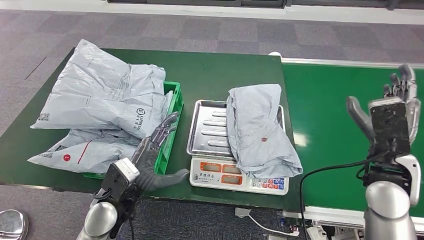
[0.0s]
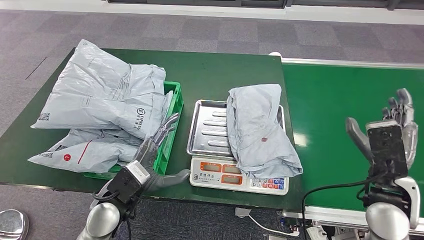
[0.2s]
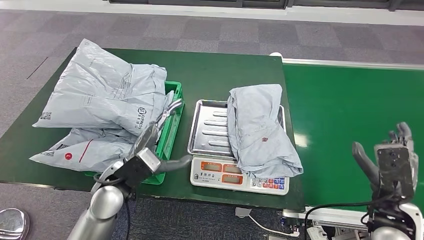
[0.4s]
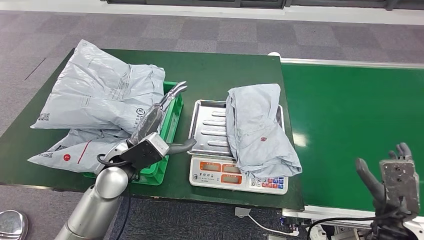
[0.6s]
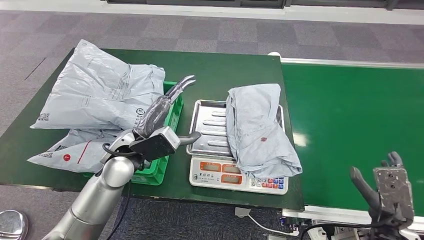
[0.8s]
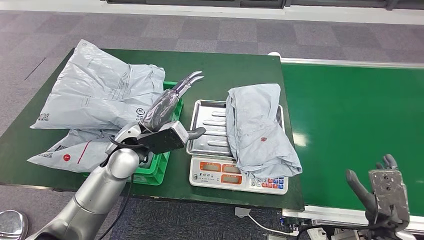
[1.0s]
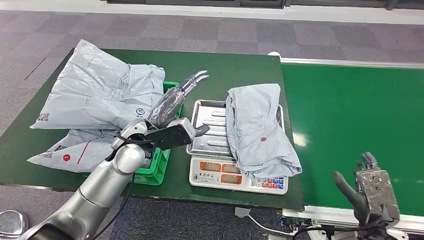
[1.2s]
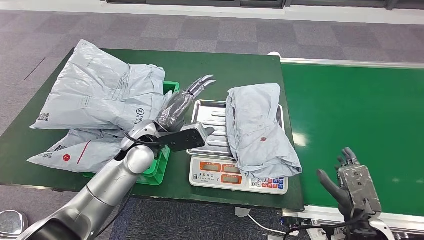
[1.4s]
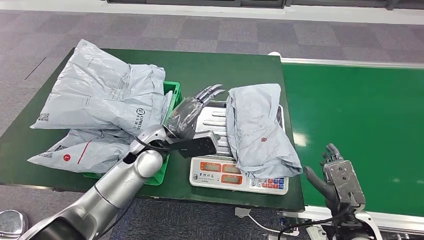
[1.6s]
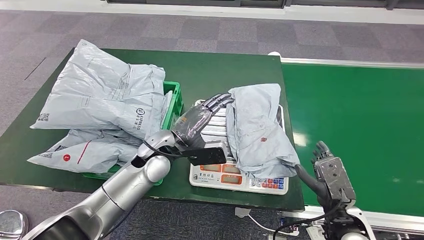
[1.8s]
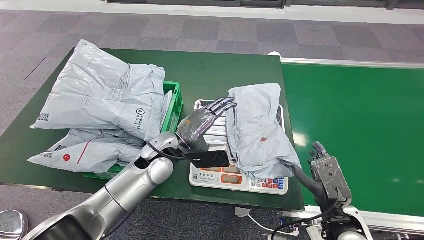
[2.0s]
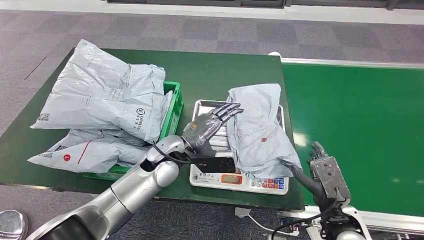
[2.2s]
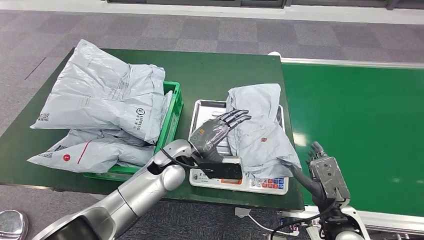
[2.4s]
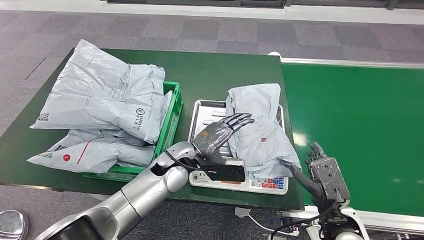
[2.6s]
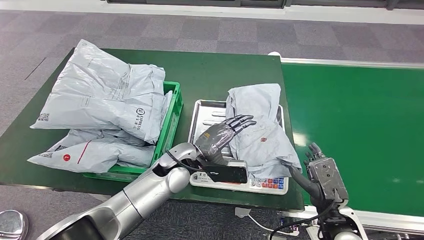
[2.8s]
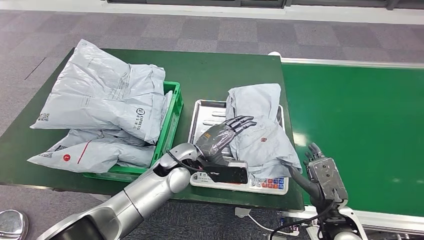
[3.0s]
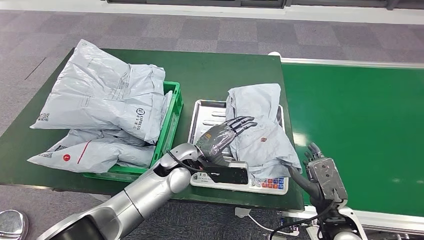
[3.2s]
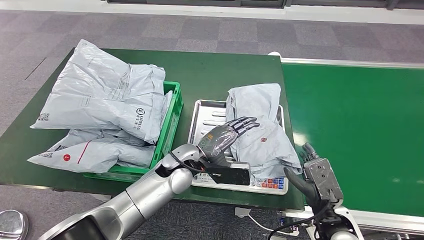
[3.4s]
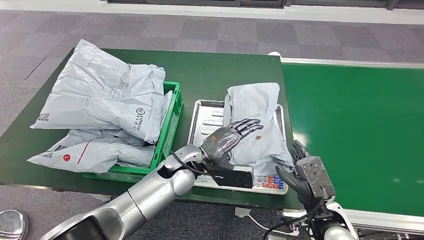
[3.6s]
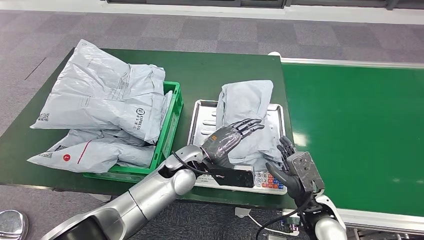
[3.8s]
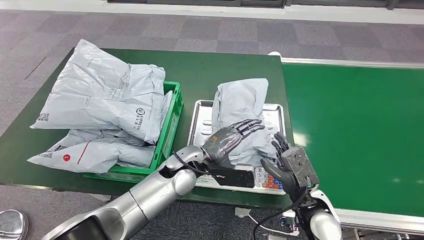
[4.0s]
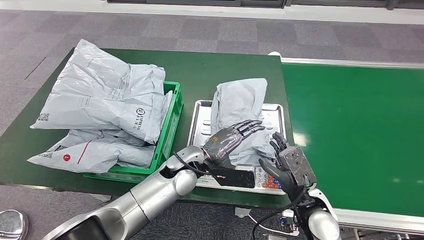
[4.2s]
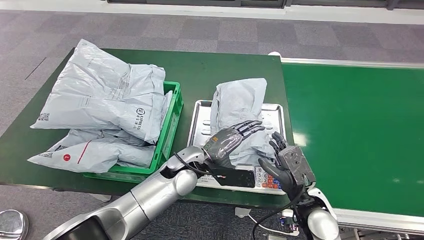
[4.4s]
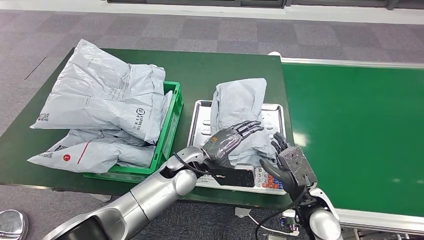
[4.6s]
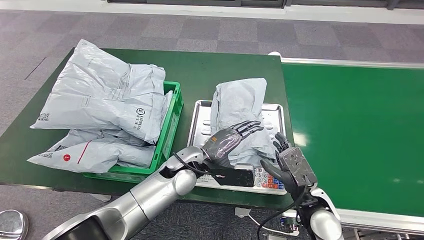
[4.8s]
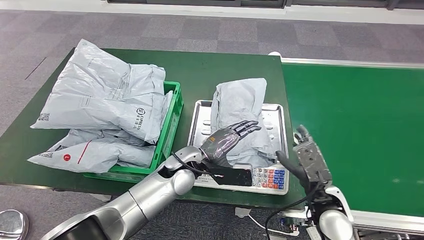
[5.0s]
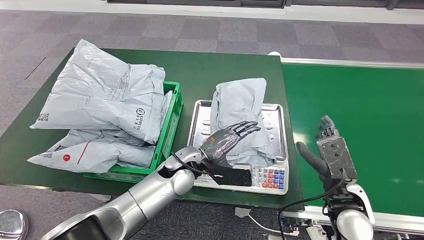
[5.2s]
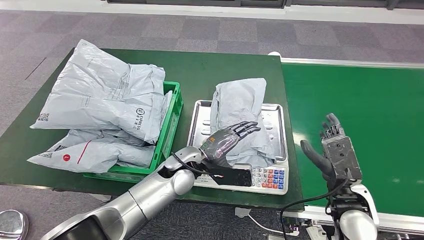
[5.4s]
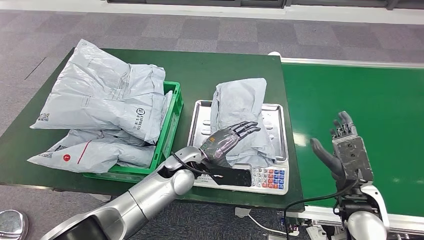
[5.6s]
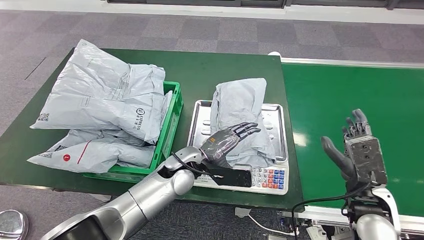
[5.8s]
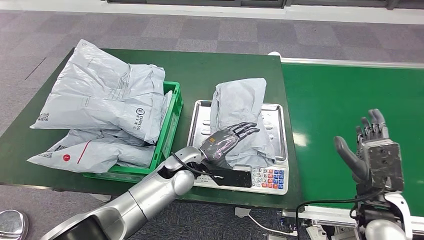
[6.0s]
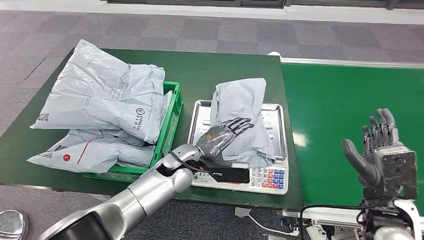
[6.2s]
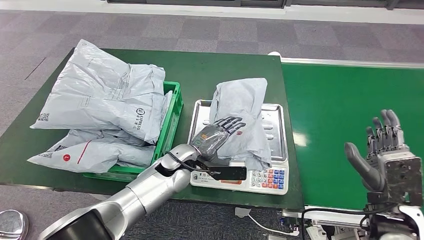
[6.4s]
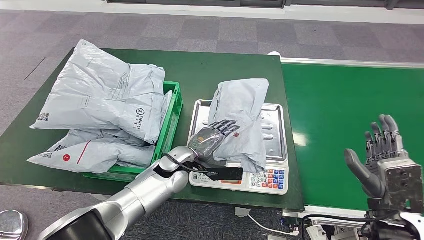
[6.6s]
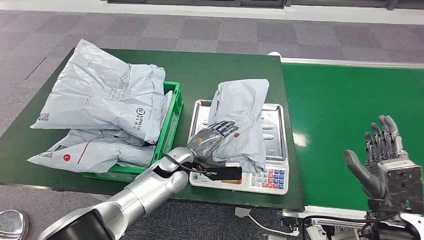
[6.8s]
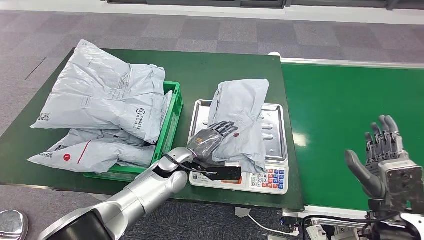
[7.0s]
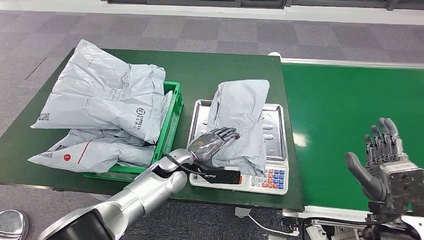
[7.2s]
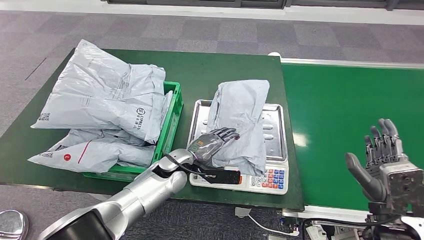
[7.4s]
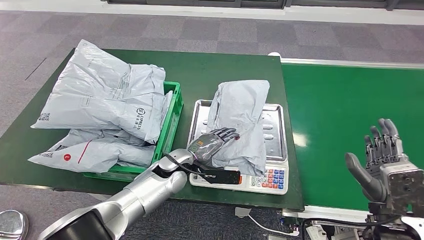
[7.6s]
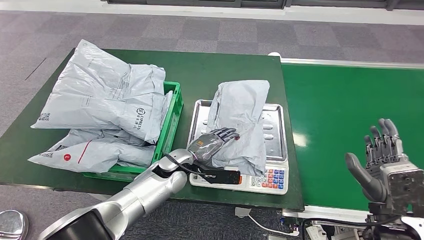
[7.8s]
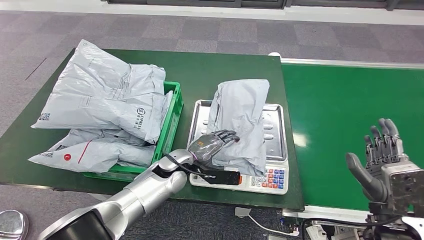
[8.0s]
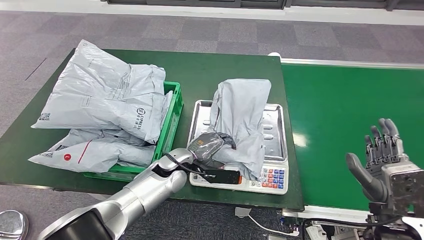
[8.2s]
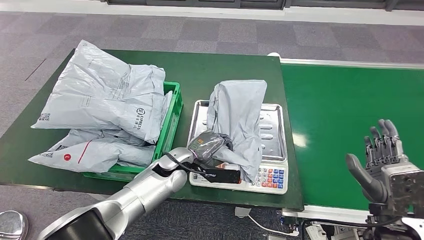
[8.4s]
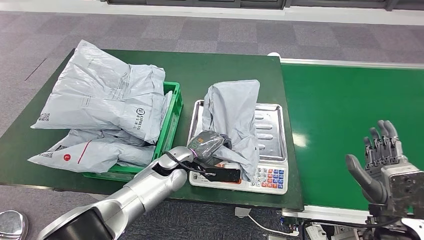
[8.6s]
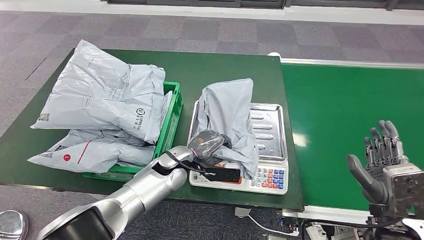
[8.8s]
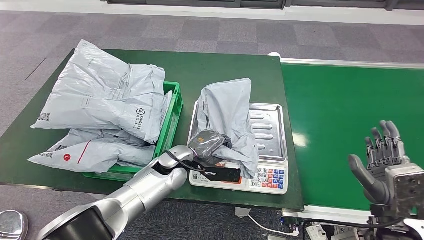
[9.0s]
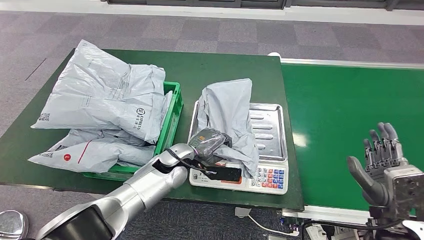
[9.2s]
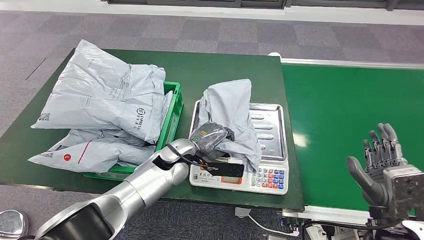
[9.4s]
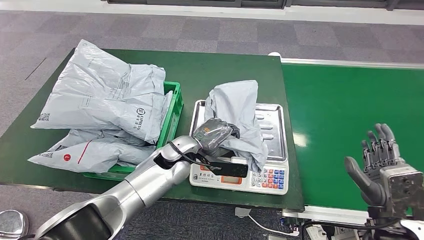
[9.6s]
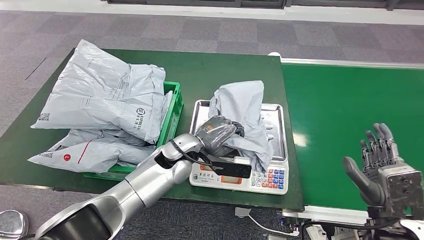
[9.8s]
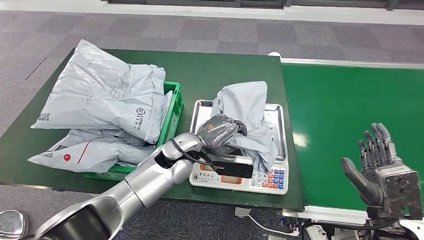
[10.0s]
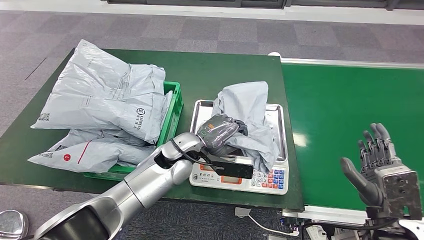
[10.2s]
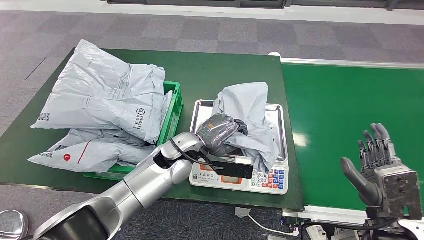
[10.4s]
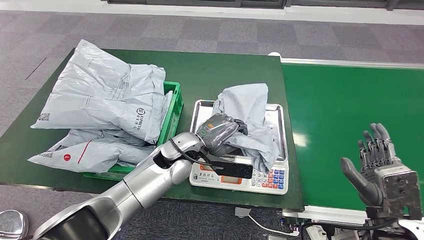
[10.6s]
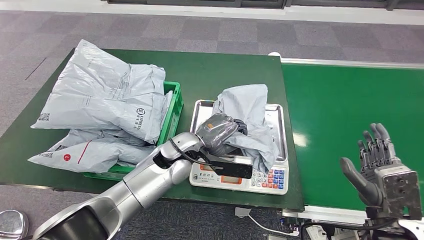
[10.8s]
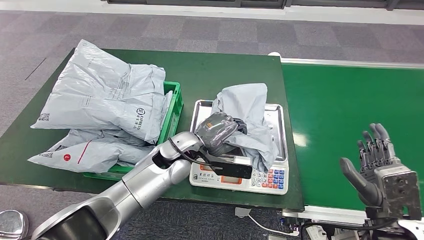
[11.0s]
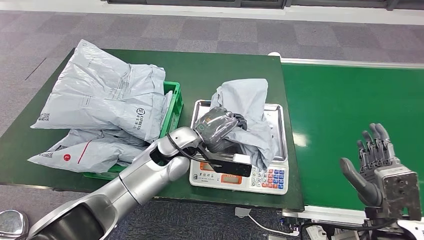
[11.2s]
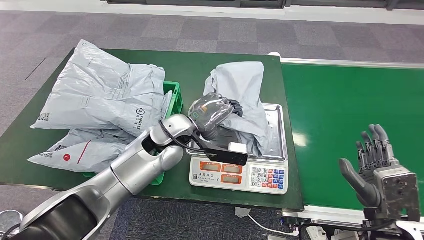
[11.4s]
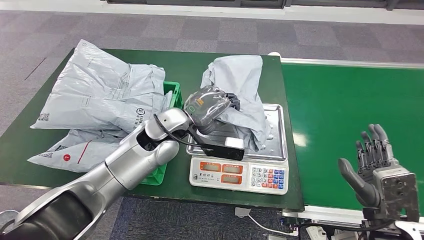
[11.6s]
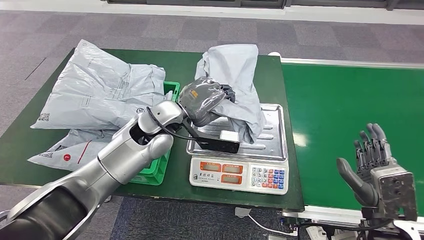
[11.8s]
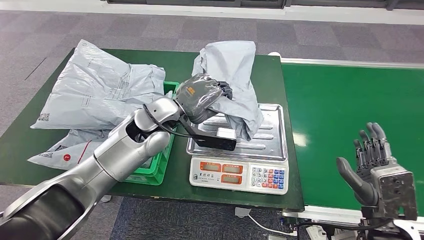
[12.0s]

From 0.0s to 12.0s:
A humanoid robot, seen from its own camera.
From 0.0s to 1.6s: The left hand travels forward, upward and to the right by roughly 15 cm; the right hand heads downward and backward, covering roughly 15 cm.
From 1.6s to 3.0s: The left hand travels to the right by about 5 cm.
From 3.0s to 4.4s: The right hand changes place by approximately 5 cm.
From 4.4s to 6.0s: The right hand heads to the right and upward, covering some 15 cm.
From 6.0s to 7.6s: The left hand shifts by about 5 cm.
From 7.6s to 9.0s: The two hands keep their place.
From 9.0s to 10.4s: The left hand moves upward, about 5 cm.

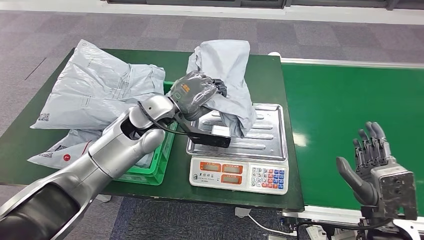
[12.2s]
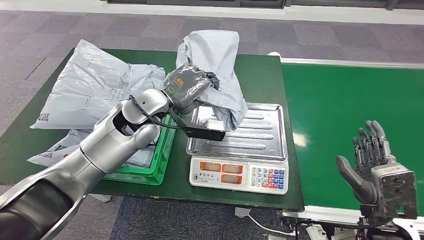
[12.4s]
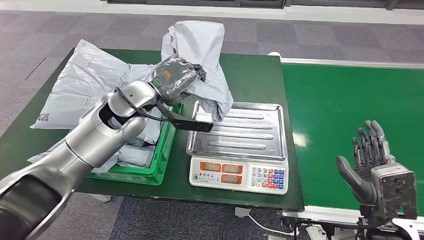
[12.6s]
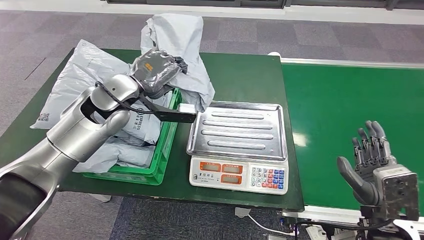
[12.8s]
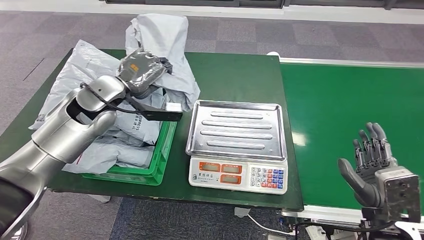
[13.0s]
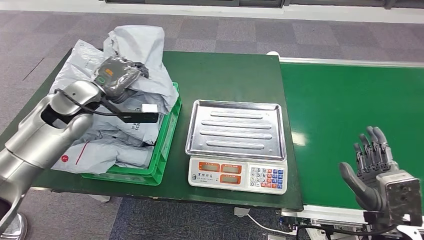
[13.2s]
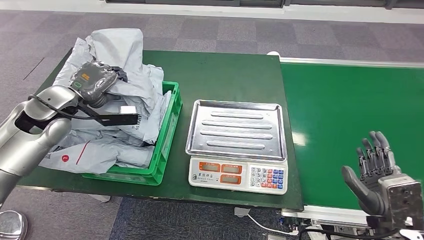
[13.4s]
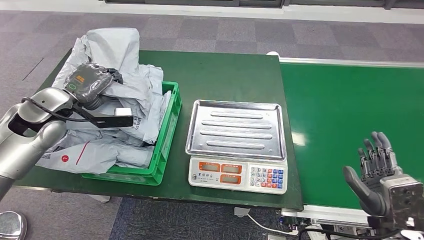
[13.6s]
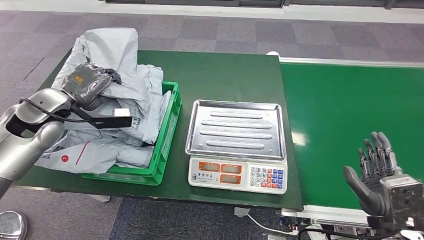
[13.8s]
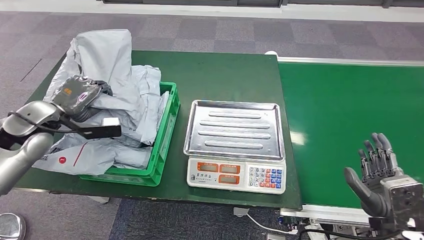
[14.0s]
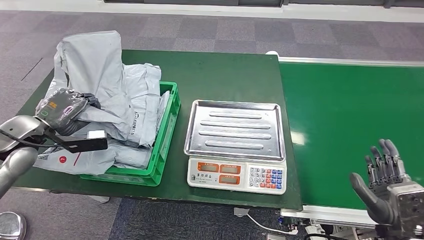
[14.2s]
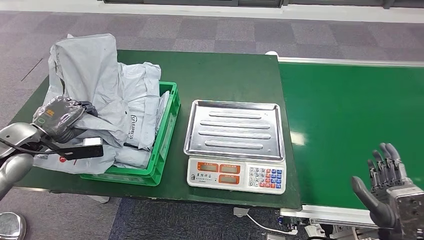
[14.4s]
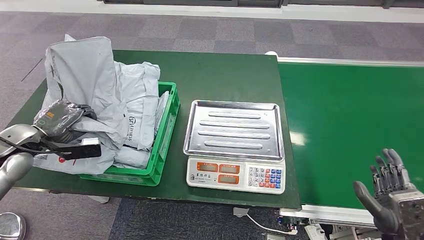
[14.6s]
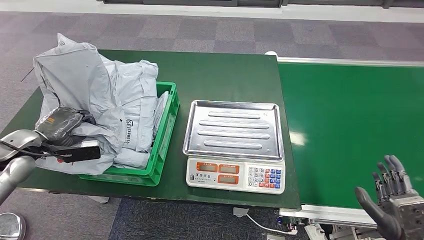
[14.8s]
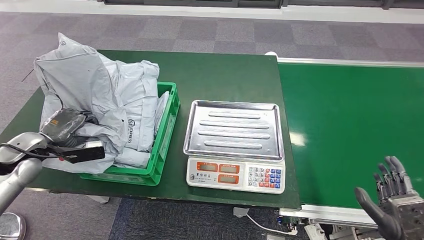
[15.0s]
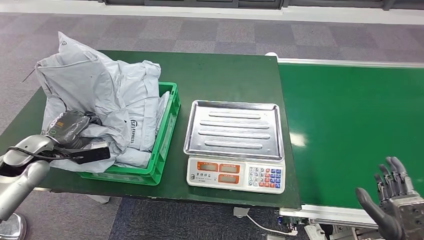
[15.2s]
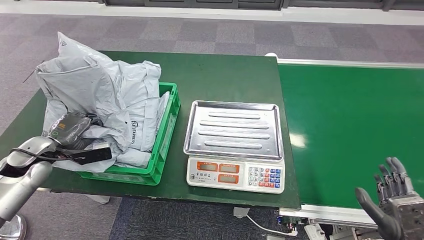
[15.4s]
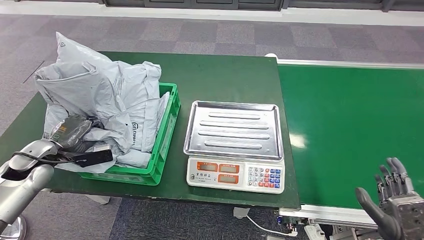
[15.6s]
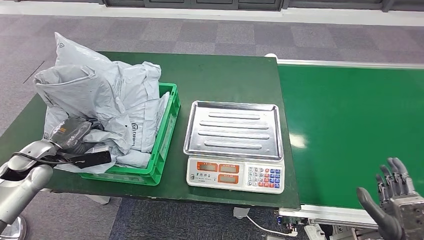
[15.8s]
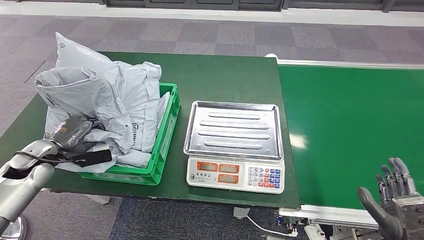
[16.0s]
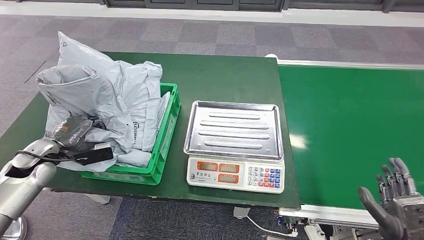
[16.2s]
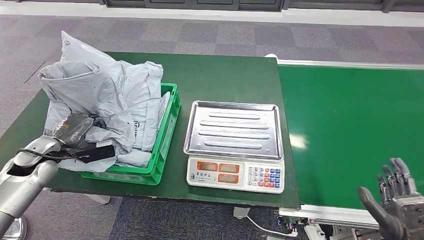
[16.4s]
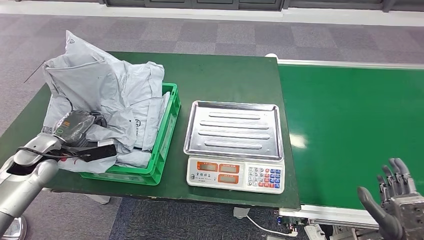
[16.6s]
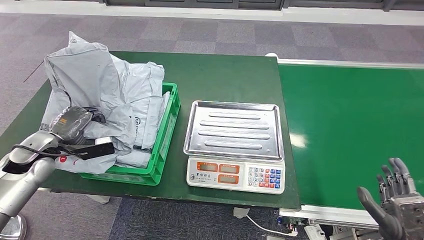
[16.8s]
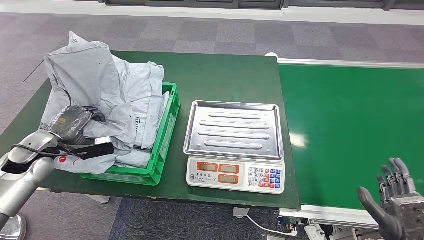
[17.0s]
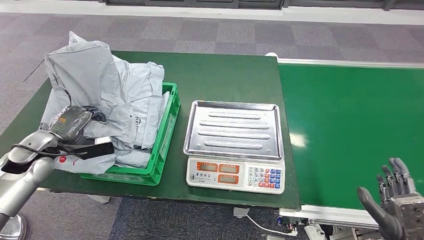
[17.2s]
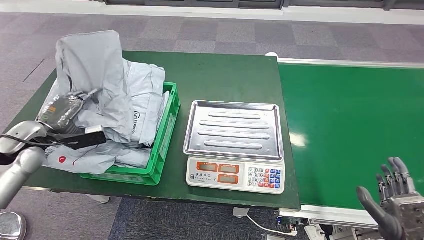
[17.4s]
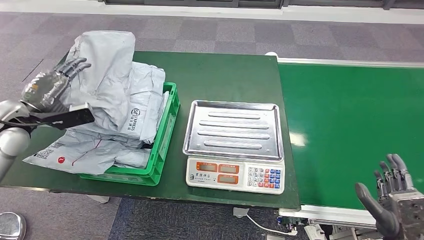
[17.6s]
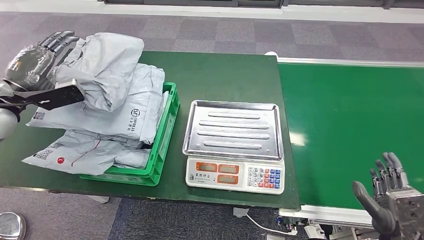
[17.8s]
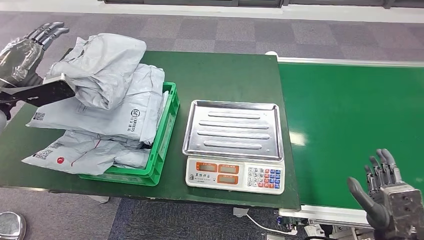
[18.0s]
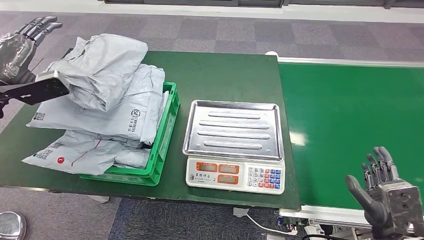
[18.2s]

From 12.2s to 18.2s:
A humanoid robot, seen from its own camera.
Step, from 12.4s to 18.2s: Put the parcel inside the courier box.
From 15.2s to 16.6s: The hands move only a little.
